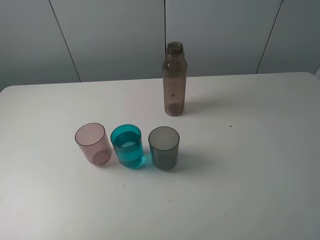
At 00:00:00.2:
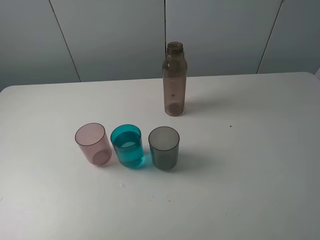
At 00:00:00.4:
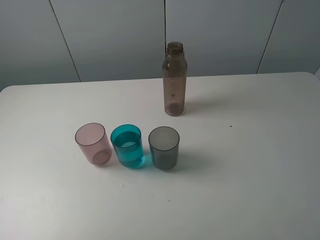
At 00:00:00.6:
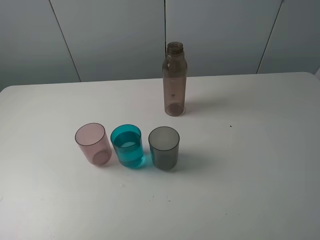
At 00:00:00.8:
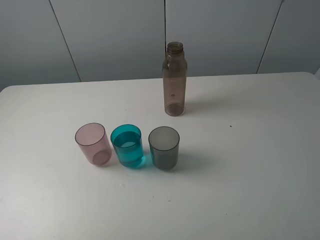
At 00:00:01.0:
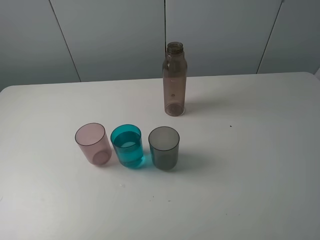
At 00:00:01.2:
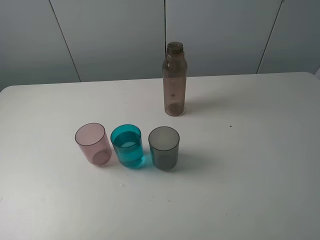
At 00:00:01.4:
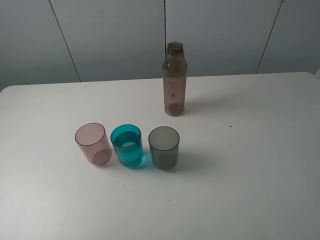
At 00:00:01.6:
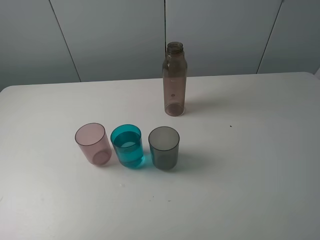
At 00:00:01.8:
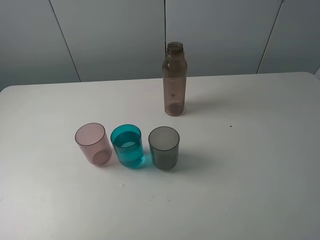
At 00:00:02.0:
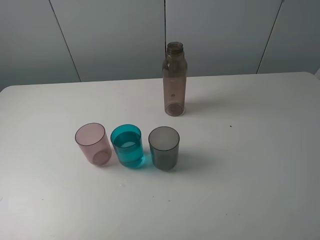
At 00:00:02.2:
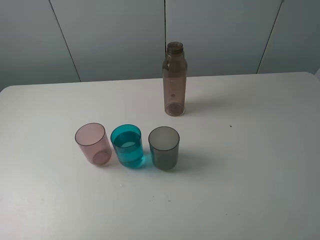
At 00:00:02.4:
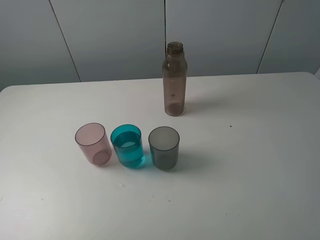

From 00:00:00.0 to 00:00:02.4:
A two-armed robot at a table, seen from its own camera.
Task of the whole recording: pick up the bottle filled with water and pour water into the middle cup of the three cups.
From 00:00:00.0 to 00:00:01.2: Both grippers stay put.
